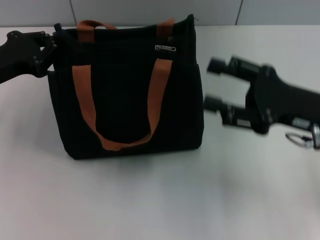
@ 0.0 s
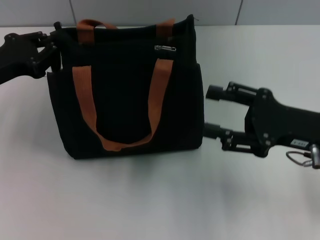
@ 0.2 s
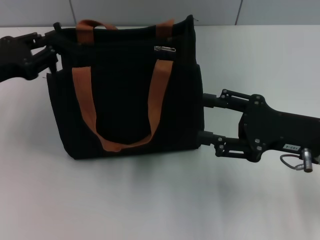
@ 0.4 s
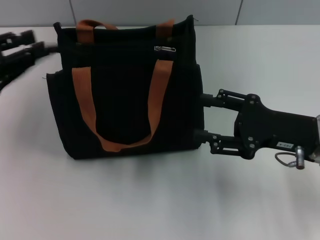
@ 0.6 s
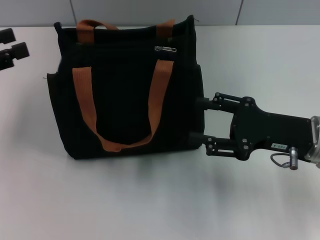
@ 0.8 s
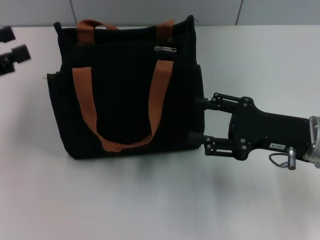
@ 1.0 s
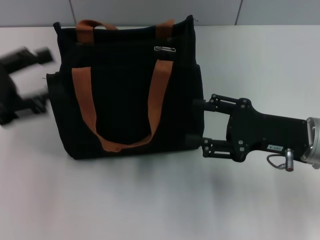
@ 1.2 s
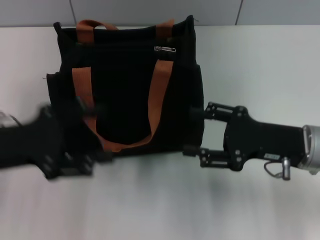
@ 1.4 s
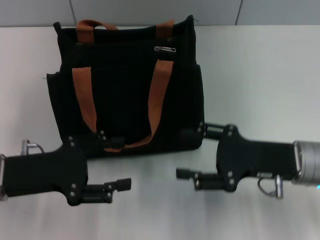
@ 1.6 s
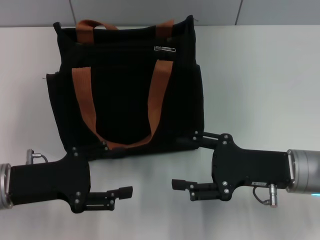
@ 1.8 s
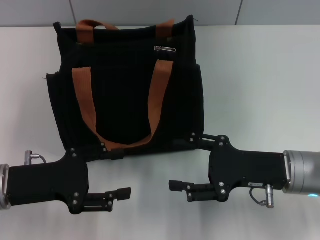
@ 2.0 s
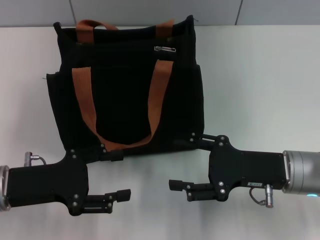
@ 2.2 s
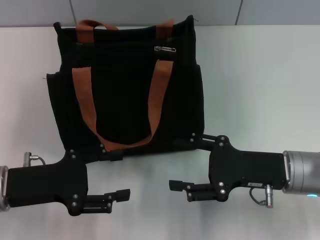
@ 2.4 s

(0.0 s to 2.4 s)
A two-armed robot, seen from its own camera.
Step, 0.0 s - 0.6 s: Grab the zipper with your left hand.
0.0 s - 1.2 s: The left gripper is displaced backward by roughly 5 cm, and opens.
1.2 s - 2.4 s: The left gripper is displaced downward and to the right by about 10 cm.

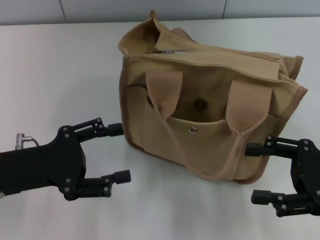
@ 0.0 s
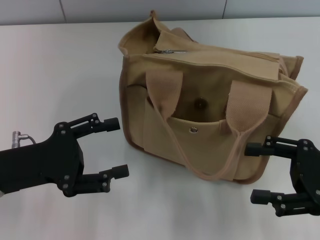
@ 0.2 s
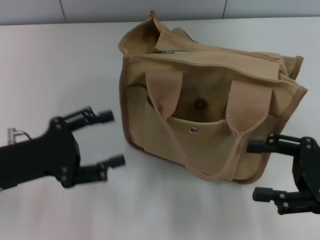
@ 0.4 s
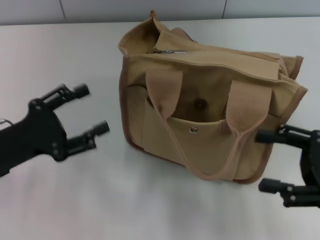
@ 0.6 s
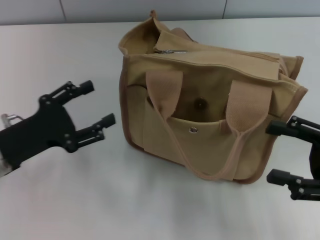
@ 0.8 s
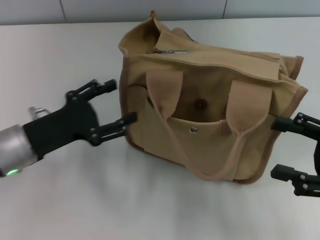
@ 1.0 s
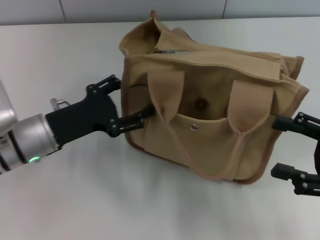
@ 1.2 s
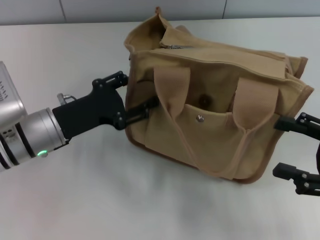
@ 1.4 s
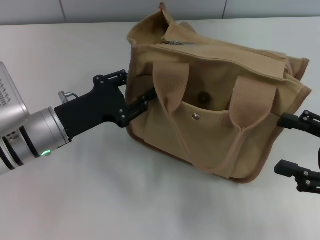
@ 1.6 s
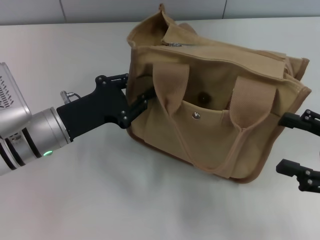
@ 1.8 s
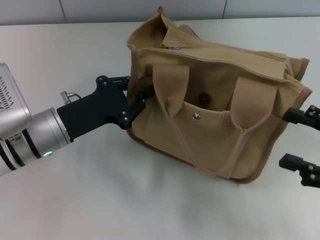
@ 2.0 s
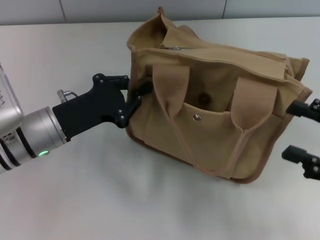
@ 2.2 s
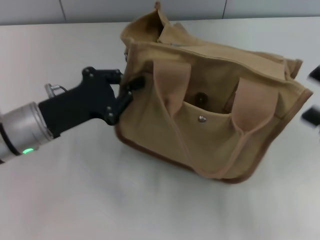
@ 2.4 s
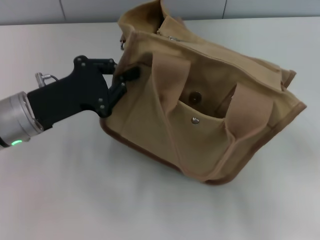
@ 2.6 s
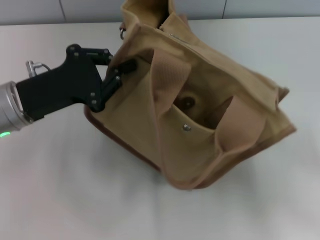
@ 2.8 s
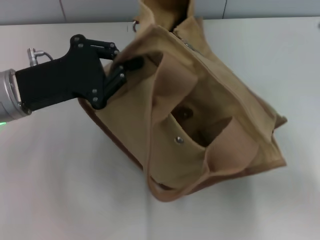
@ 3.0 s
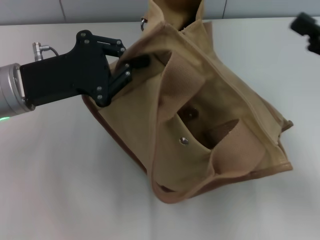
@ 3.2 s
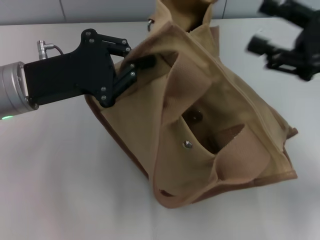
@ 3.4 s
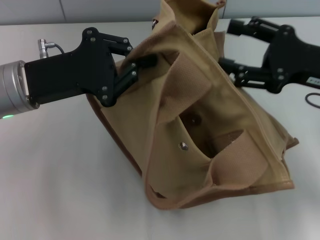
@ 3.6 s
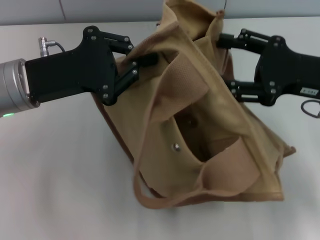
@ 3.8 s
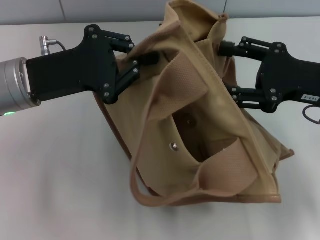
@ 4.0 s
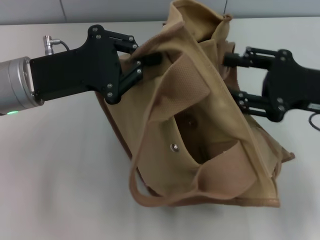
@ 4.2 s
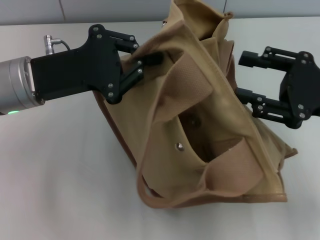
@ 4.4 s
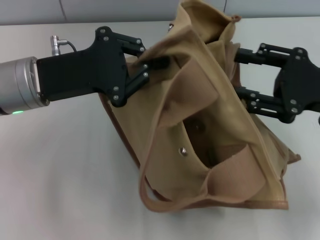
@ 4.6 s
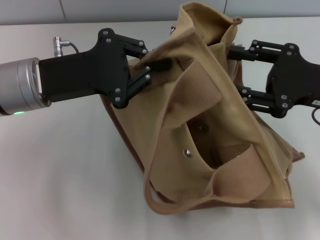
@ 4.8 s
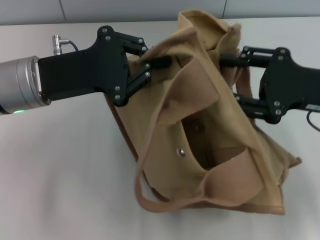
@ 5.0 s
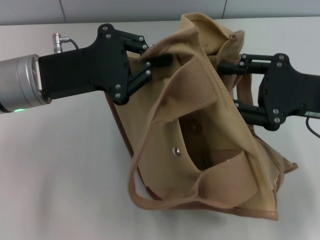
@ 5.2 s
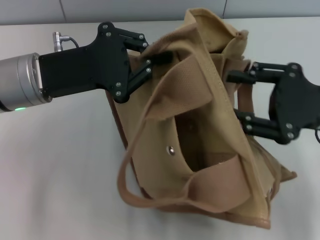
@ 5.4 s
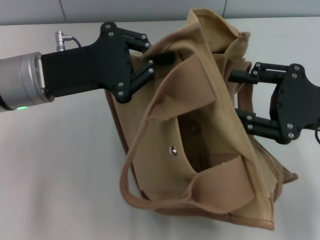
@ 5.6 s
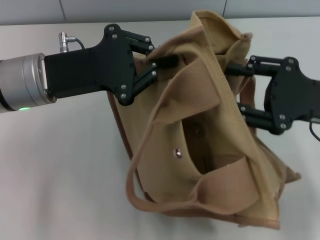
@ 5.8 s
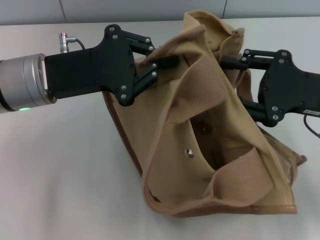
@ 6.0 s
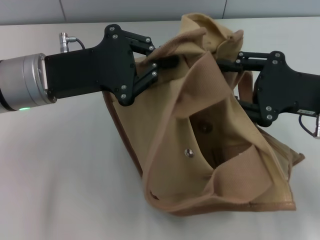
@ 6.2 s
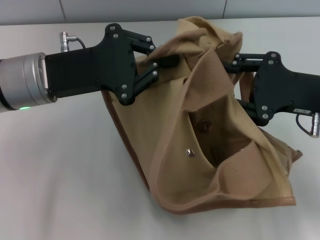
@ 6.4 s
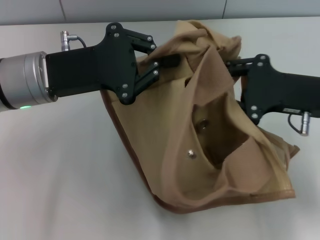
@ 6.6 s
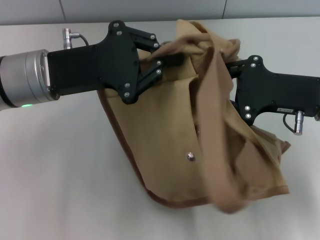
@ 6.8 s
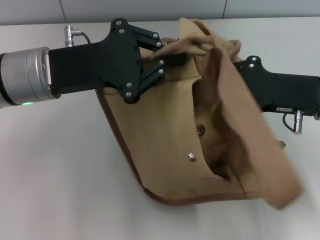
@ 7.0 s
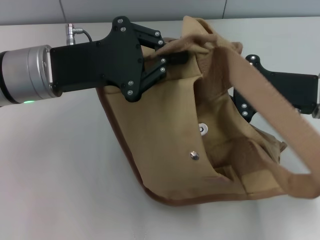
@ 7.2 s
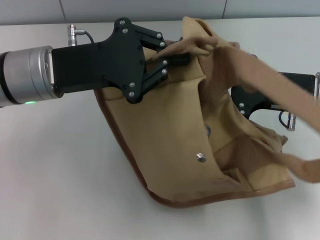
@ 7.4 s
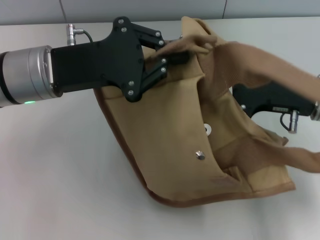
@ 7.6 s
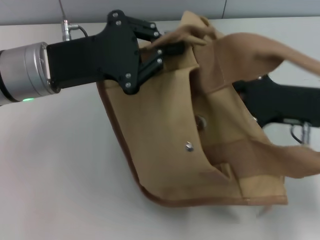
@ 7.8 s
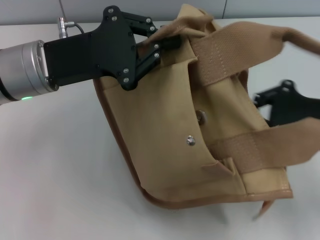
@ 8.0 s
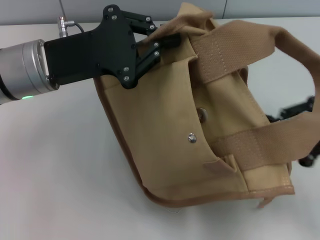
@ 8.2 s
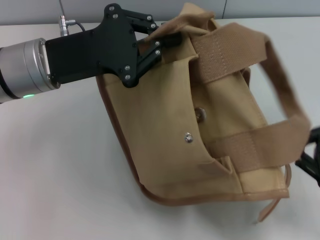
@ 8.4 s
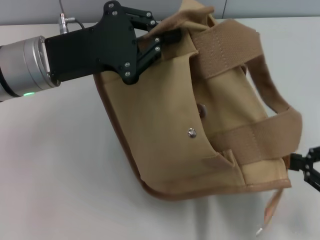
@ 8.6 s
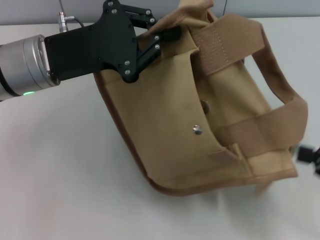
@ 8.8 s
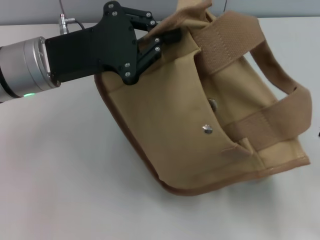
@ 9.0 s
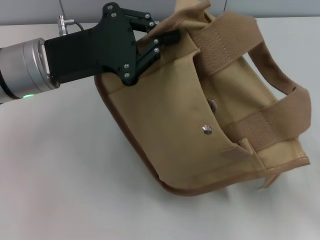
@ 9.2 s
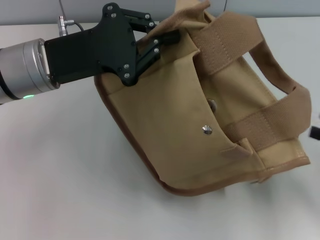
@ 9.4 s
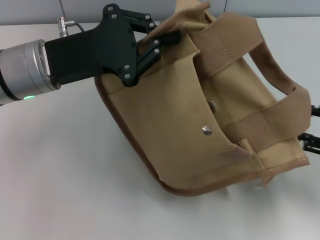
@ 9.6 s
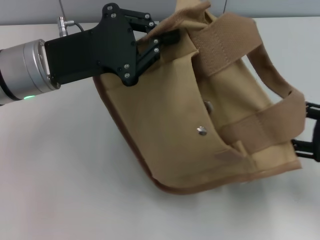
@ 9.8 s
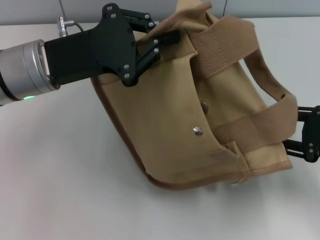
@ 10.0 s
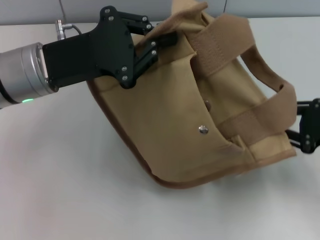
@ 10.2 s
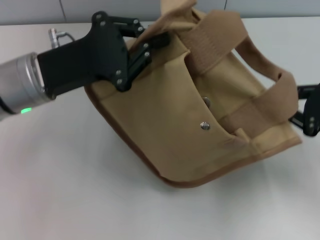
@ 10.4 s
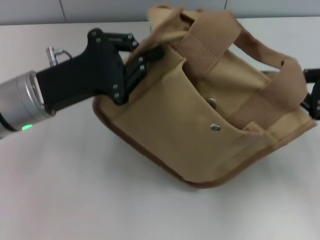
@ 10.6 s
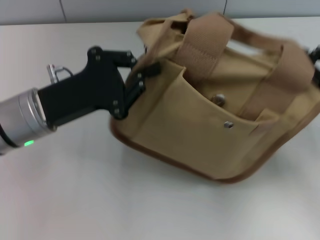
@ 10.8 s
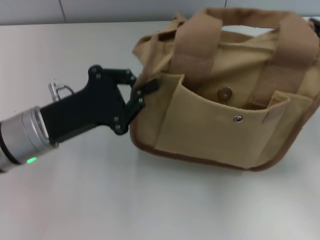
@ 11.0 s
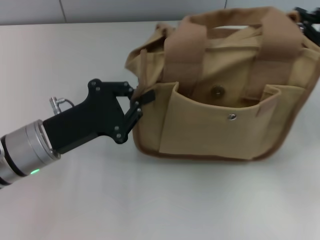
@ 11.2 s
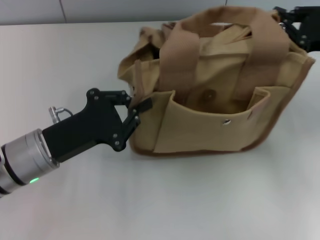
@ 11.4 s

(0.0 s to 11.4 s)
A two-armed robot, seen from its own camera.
Step, 0.0 s - 9.2 s: Pull open the zipper with your right hand.
0.0 s - 1.4 s: The left gripper is displaced forward and to the right by approximately 10 cm.
1.4 s - 2.8 s: The left gripper goes some 5 cm upward, and closes its fingers. Meanwhile the right gripper changes place by roughly 5 cm.
2.8 s - 4.2 s: The right gripper moves to the left, about 10 cm.
5.6 s - 7.2 s: The right gripper shifts by about 5 cm, and closes its fingers.
7.2 s - 8.6 s: The right gripper shifts about 15 cm to the right and backward.
8.6 s - 10.0 s: The right gripper travels forward by approximately 5 cm, and opens up.
10.0 s - 11.4 s: The right gripper moves forward and upward, about 10 cm, and closes up. The left gripper is displaced downward and backward by roughly 10 cm.

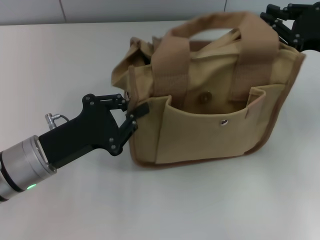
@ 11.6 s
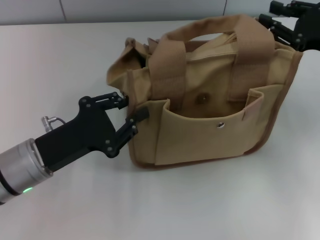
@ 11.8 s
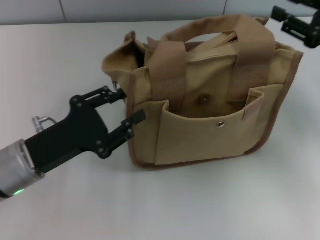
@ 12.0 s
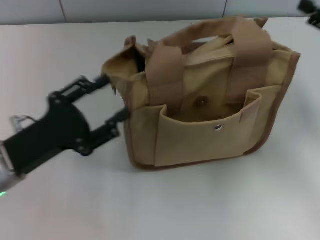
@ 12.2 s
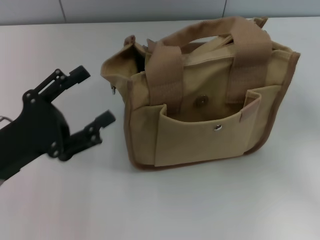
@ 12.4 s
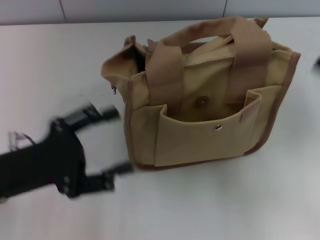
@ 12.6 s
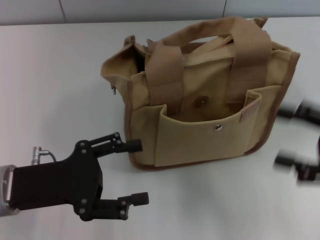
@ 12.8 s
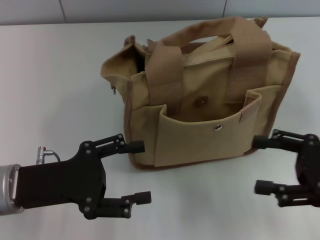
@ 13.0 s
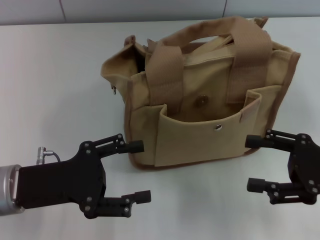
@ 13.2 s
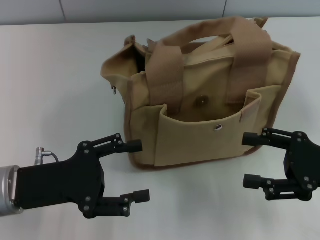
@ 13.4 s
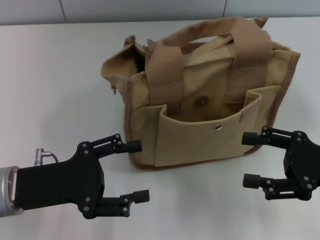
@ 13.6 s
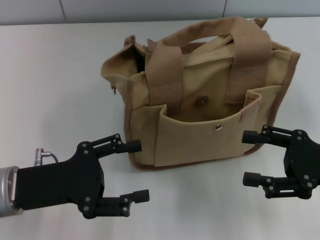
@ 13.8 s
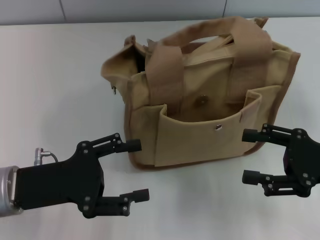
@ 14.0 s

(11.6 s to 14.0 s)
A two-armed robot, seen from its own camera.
11.6 s - 12.8 s: The right gripper travels backward by roughly 15 cm, and opens up; the left gripper opens.
12.8 s - 14.0 s: The grippers move only a little.
